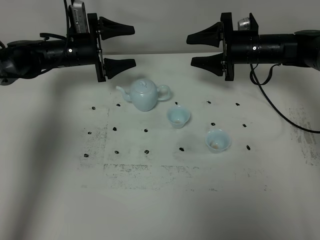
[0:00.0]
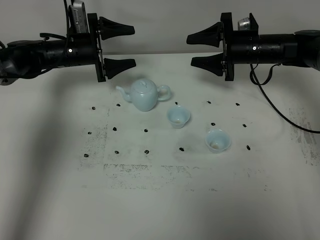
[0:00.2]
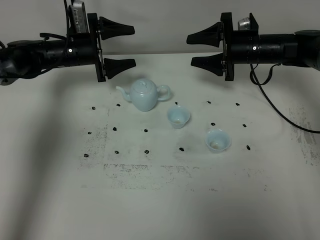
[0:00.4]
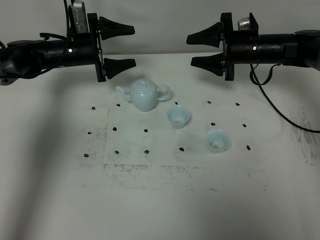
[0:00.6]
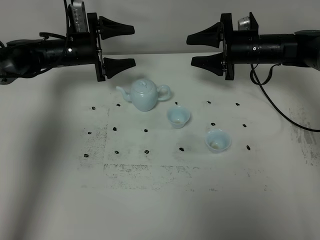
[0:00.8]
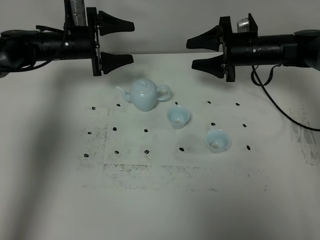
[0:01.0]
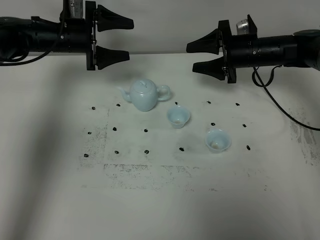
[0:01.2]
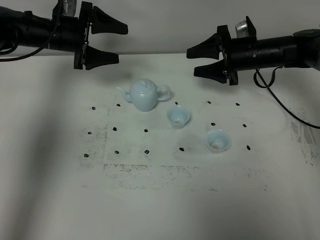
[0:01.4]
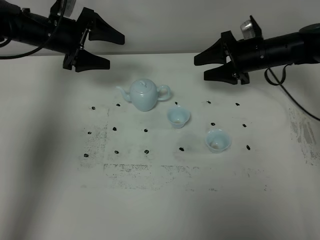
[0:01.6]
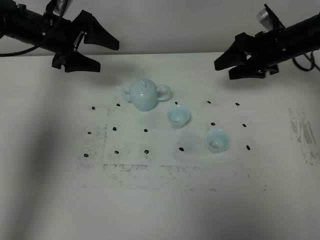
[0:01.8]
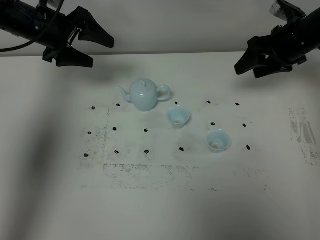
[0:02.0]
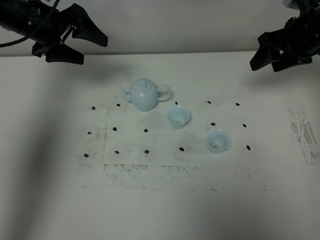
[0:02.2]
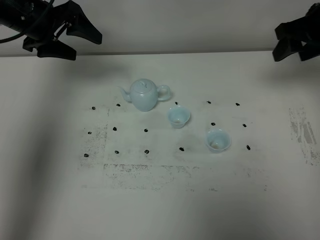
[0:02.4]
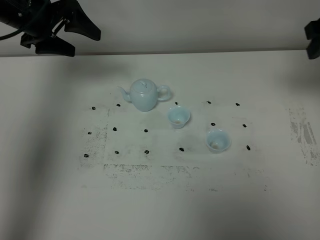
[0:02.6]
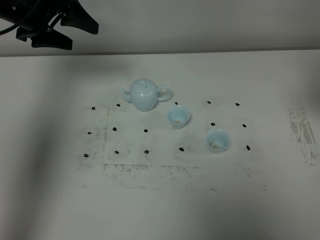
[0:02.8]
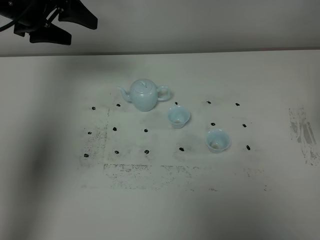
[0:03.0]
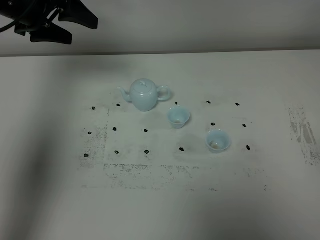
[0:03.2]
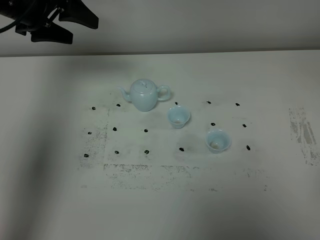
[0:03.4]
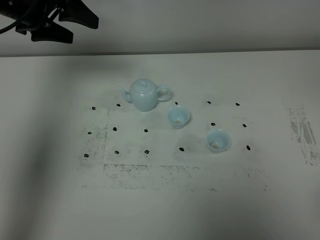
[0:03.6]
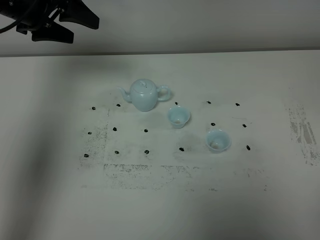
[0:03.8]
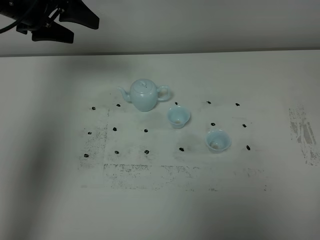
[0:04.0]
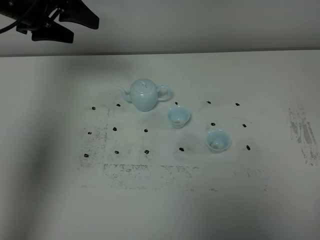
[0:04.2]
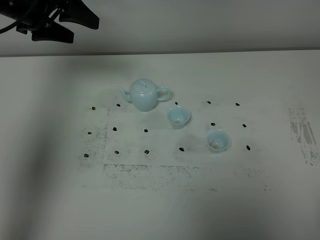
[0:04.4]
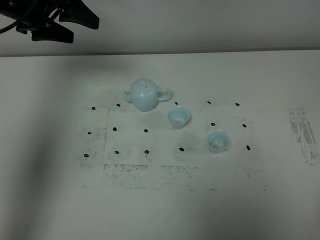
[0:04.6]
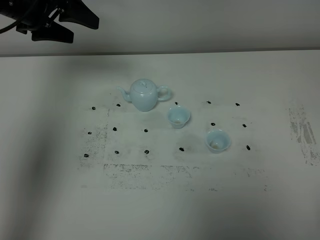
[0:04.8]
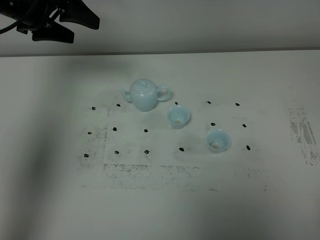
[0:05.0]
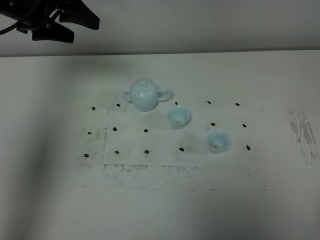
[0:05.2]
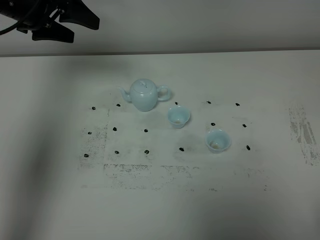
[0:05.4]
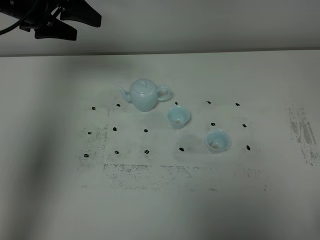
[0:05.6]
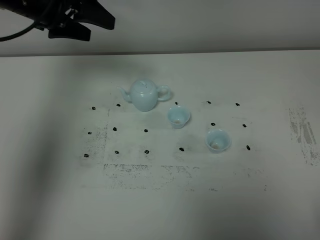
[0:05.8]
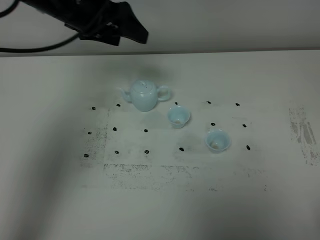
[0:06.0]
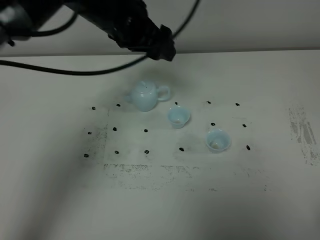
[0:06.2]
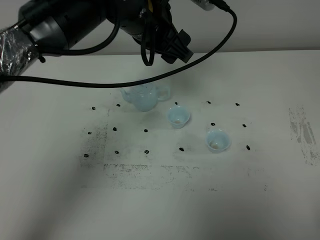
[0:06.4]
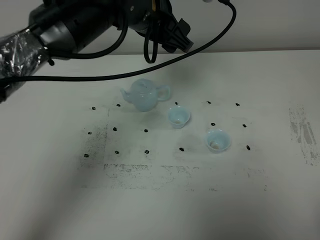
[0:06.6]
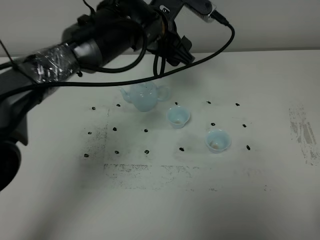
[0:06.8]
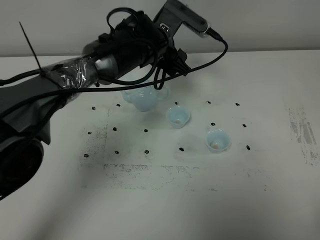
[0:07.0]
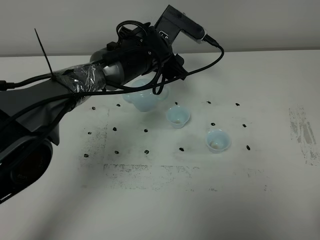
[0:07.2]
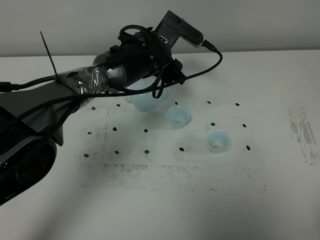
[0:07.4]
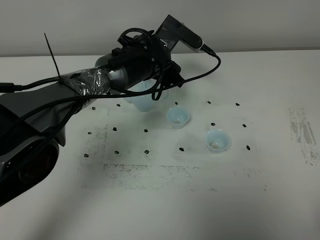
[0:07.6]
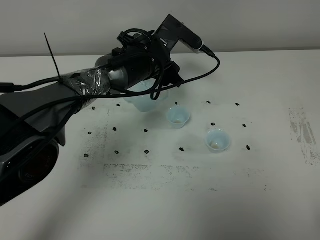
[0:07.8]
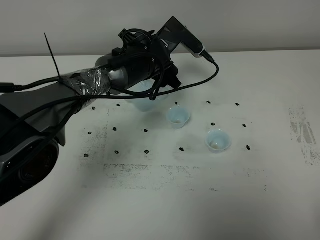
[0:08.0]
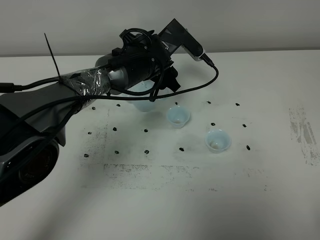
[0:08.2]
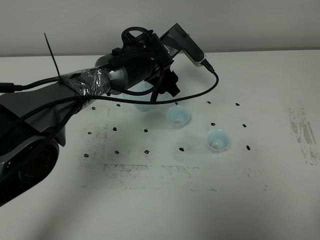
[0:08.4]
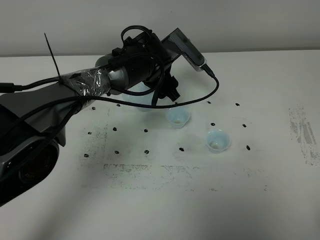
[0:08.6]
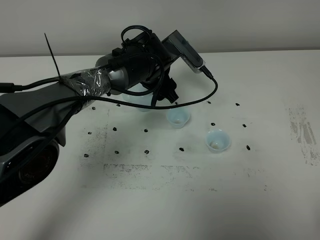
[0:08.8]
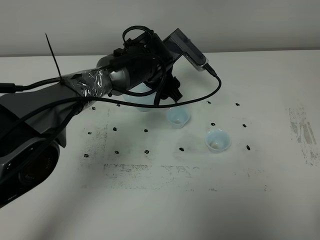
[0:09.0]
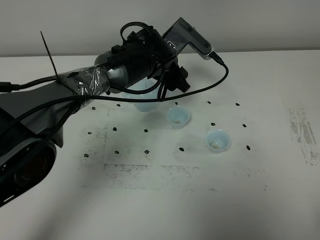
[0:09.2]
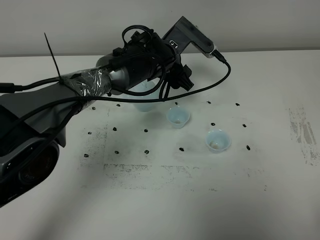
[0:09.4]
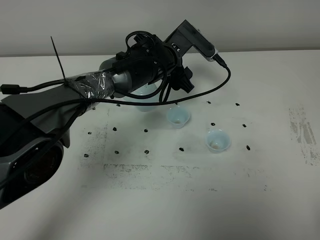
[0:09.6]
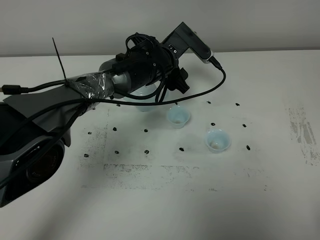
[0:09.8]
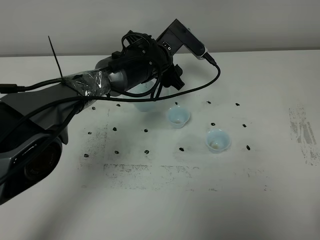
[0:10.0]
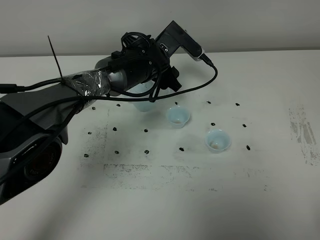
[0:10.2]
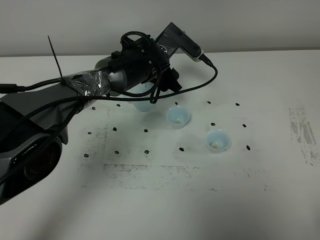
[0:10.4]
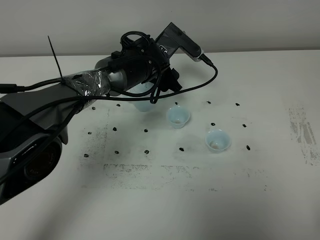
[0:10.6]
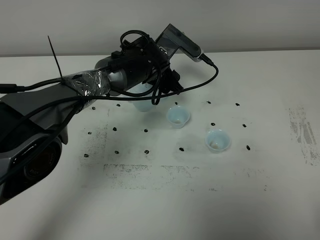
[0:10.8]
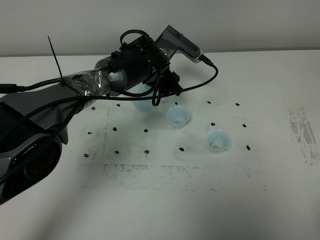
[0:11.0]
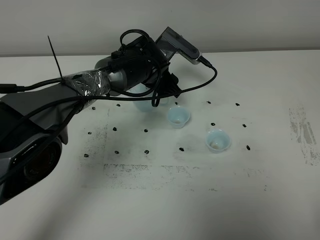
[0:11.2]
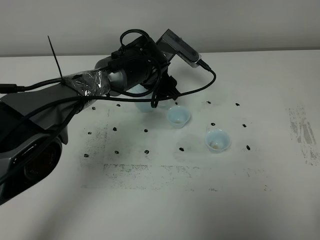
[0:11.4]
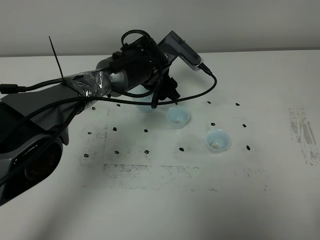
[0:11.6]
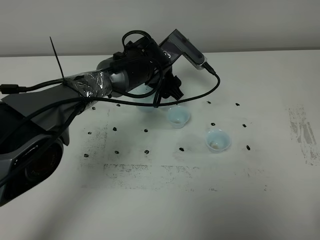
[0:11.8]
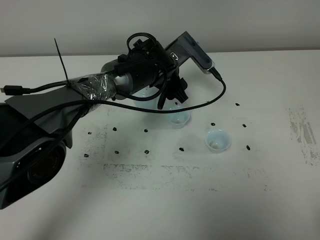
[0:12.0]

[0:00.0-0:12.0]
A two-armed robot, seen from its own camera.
Task of the whole recording: grasp the blue porcelain teapot and pour the tea into the two blue porcelain teacups one by one, put the blue porcelain teapot back in its original place.
0:00.0 to 0:01.6: The left gripper travels upward by roughly 10 cm.
0:01.6 to 0:03.0: The left gripper moves upward, some 10 cm, while the right gripper goes about 35 cm backward and upward.
0:04.4 to 0:06.0: The left gripper moves to the right, approximately 10 cm.
0:06.0 to 0:07.6: The left gripper shifts some 20 cm downward and to the right.
0:07.6 to 0:12.0: There are only small adjustments of the grippers.

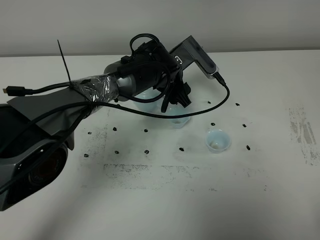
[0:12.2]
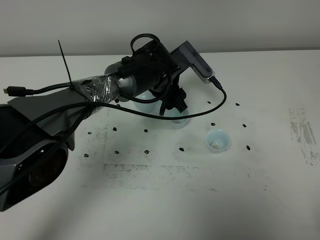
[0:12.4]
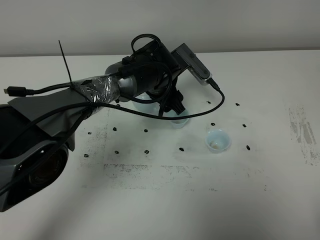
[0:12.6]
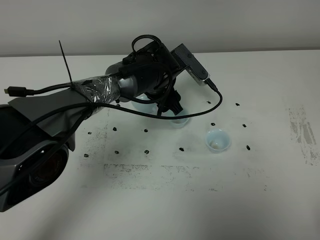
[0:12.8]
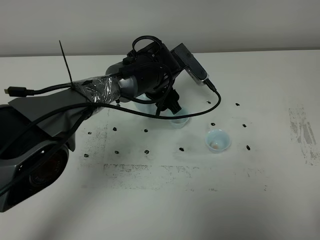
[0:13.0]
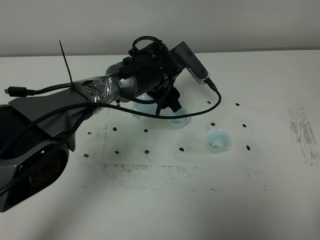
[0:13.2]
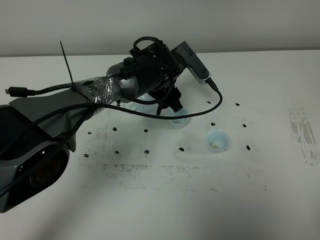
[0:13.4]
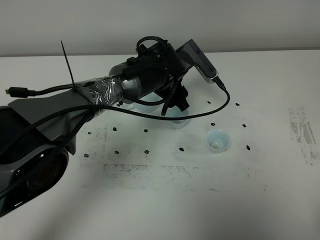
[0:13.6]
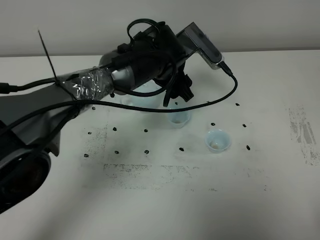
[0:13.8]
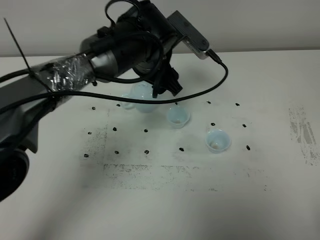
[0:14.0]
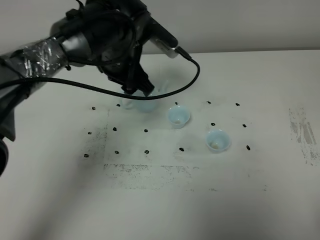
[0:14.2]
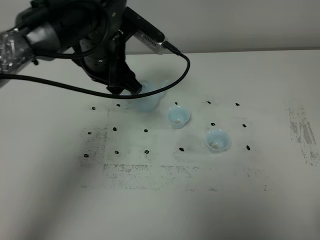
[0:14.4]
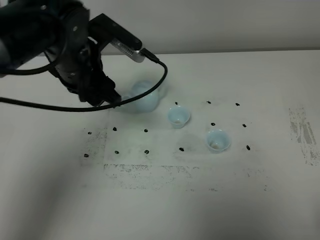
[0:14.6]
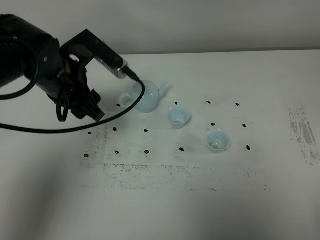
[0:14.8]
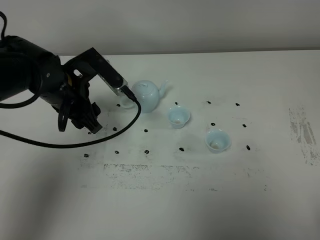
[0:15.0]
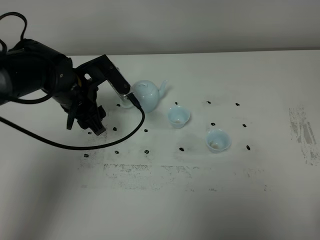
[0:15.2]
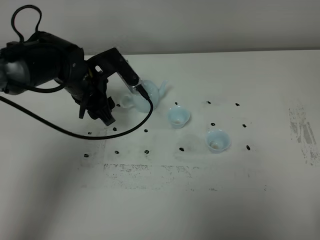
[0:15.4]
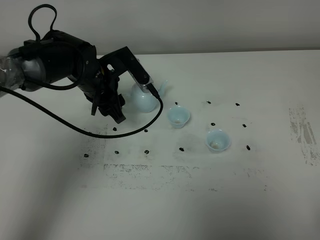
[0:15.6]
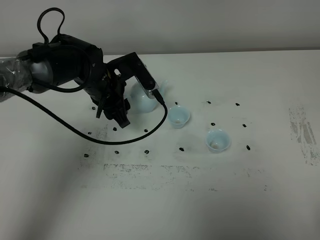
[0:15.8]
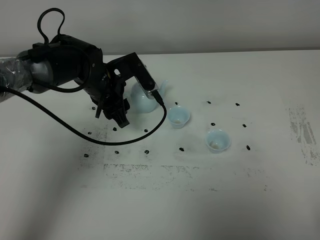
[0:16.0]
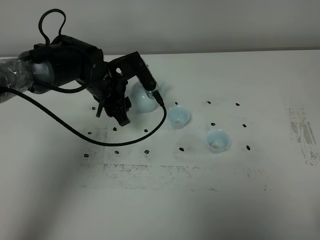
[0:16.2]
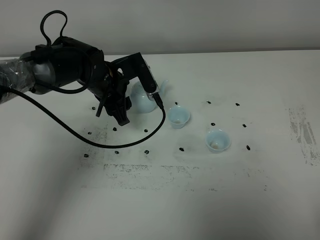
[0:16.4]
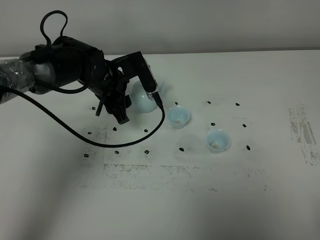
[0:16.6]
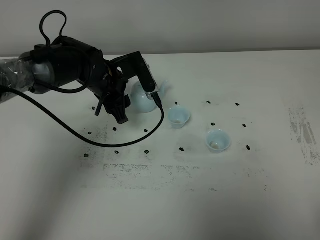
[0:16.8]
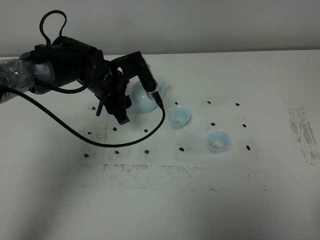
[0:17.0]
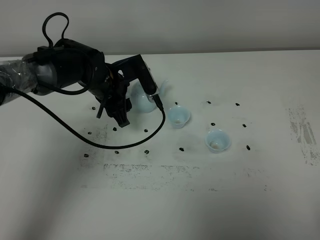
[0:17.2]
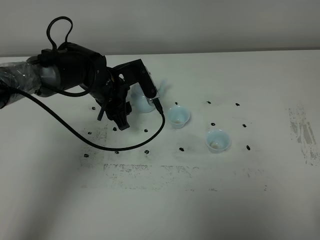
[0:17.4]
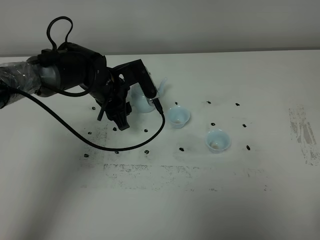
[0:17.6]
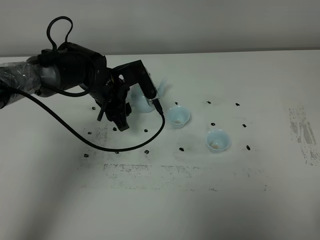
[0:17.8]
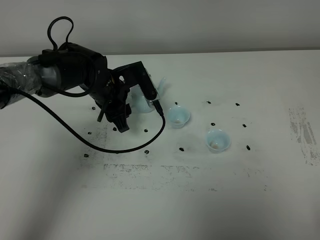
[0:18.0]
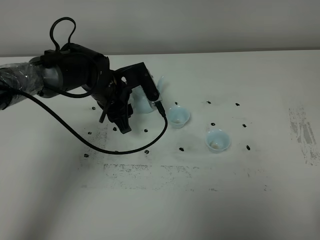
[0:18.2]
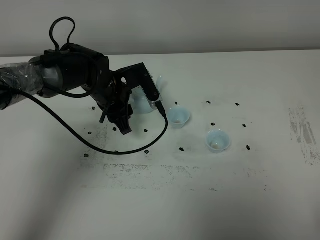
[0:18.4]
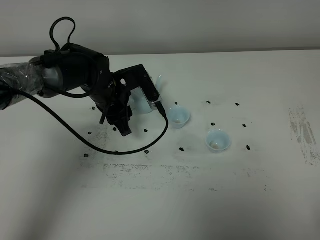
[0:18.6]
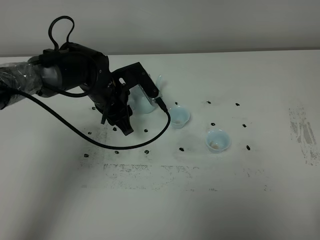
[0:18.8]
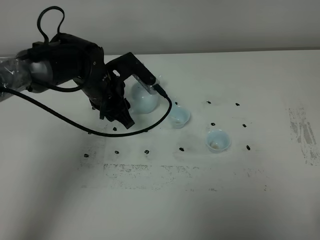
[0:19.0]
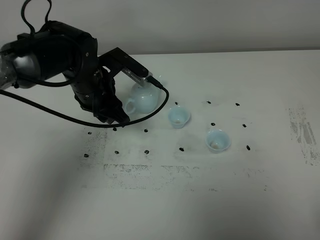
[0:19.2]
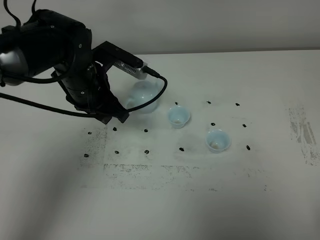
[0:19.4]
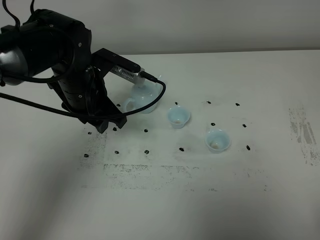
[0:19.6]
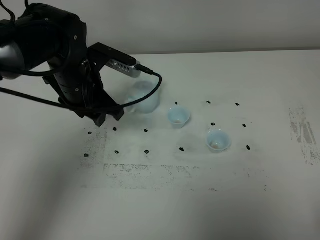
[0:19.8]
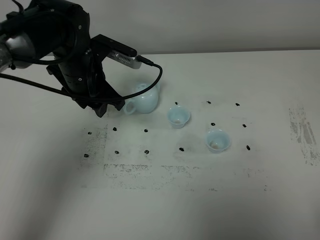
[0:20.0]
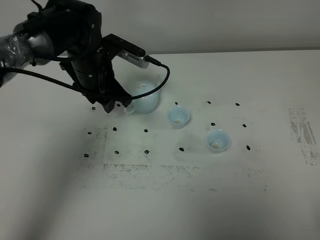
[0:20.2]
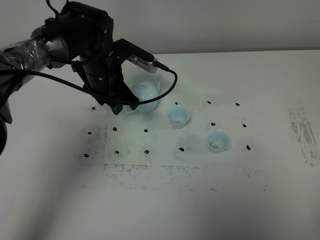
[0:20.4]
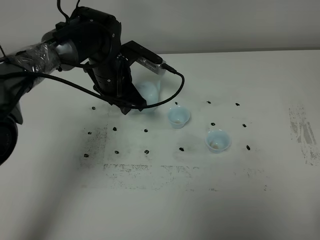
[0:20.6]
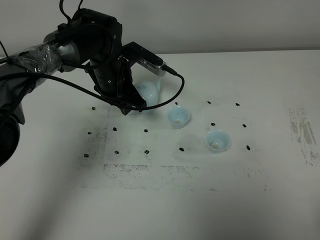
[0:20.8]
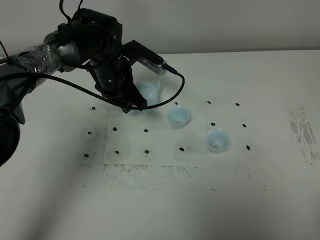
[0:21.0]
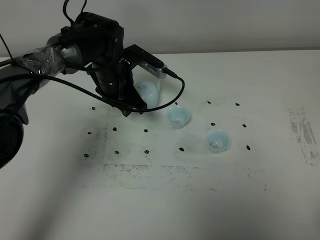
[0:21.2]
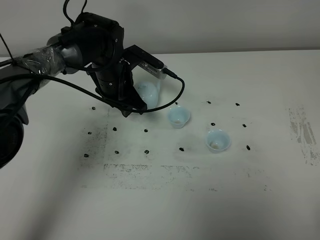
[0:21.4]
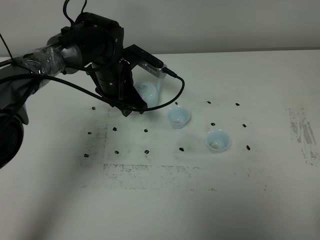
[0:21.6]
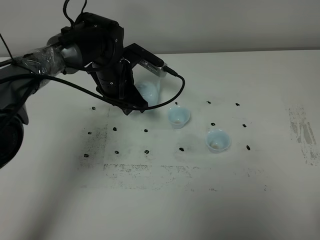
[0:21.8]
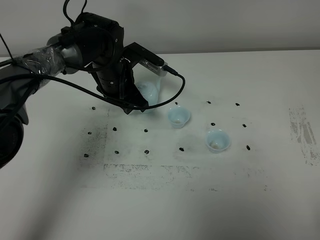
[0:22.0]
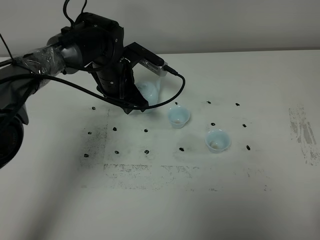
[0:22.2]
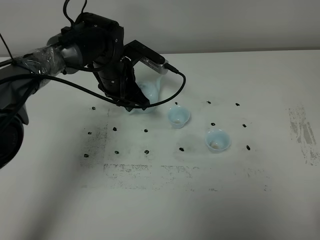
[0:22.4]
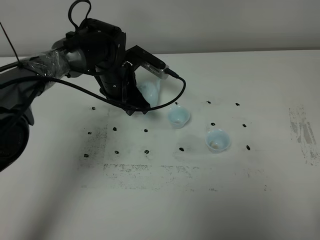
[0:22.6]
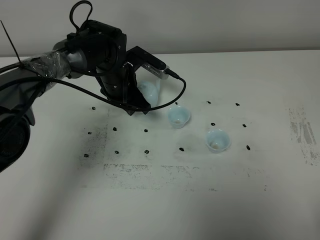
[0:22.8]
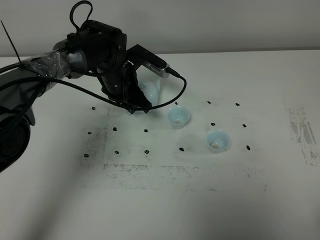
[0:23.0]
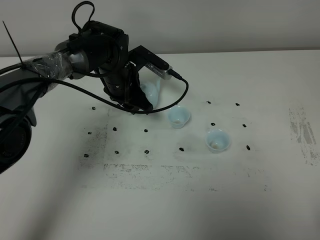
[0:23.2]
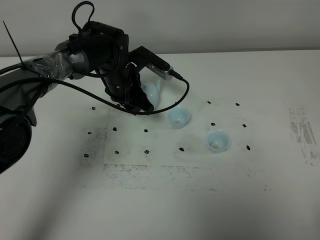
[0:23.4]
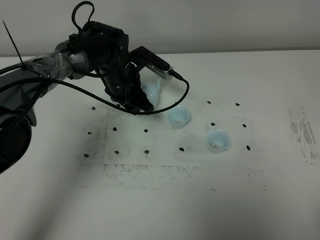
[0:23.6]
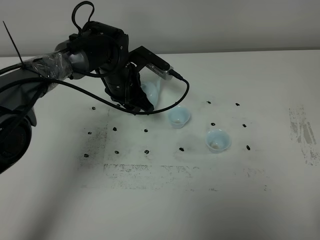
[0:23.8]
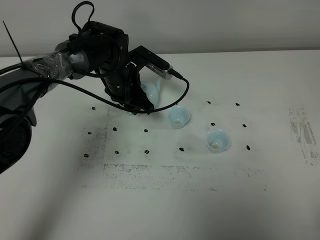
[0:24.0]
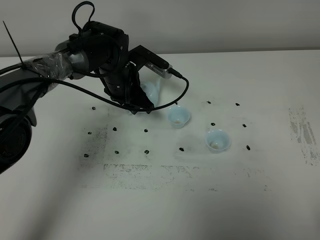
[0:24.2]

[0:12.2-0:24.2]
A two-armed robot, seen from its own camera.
Task of the whole recording: grasp the blue porcelain teapot and pour the tea into the two blue porcelain teacups one by one, put the blue porcelain teapot back in its original place.
0:12.2 to 0:13.8: The left gripper shifts some 5 cm upward.
0:13.8 to 0:15.2: The left gripper travels to the left by about 15 cm.
0:15.2 to 0:16.6: The left gripper changes place by about 5 cm.
0:16.6 to 0:18.2: There are only small adjustments of the grippers.
0:18.2 to 0:19.8: The left gripper shifts approximately 10 cm upward.
0:19.8 to 0:21.2: The left gripper is displaced forward and downward by about 10 cm.
0:21.2 to 0:22.6: There are only small adjustments of the grippers.
0:22.6 to 0:24.2: Neither gripper changes place.
